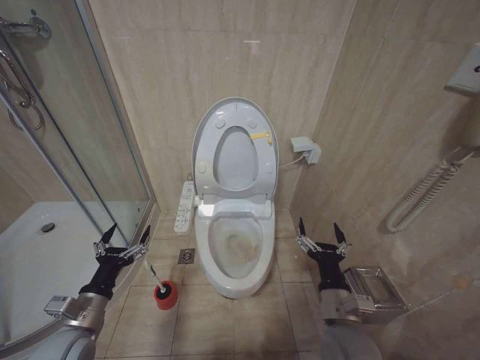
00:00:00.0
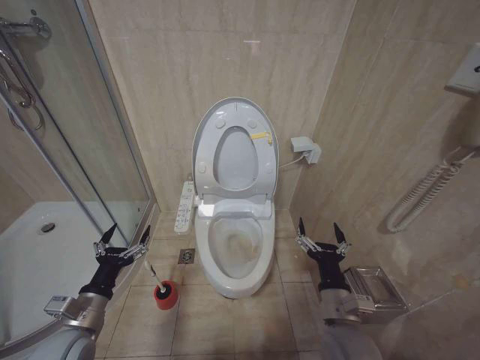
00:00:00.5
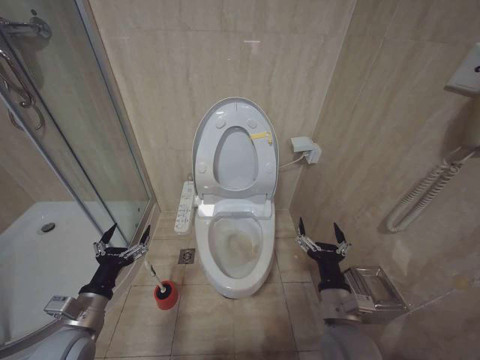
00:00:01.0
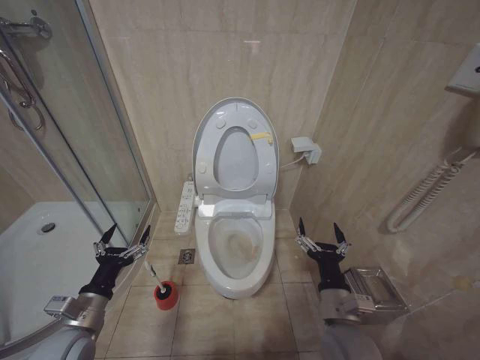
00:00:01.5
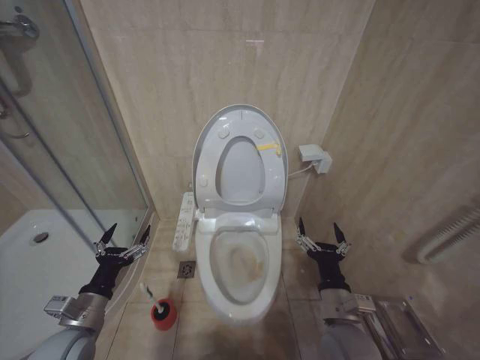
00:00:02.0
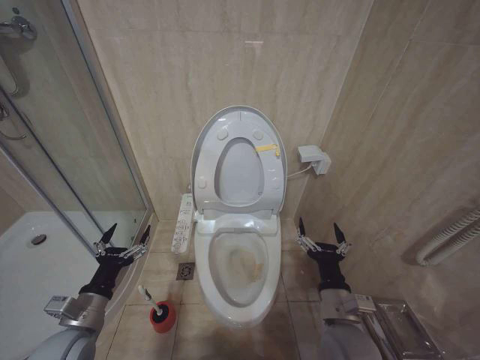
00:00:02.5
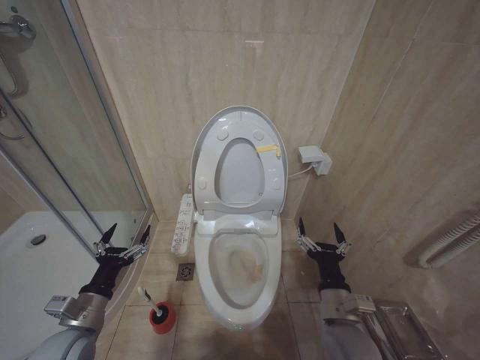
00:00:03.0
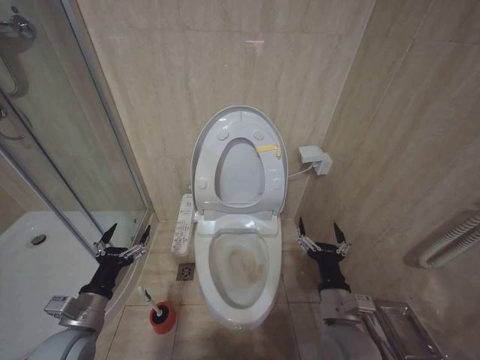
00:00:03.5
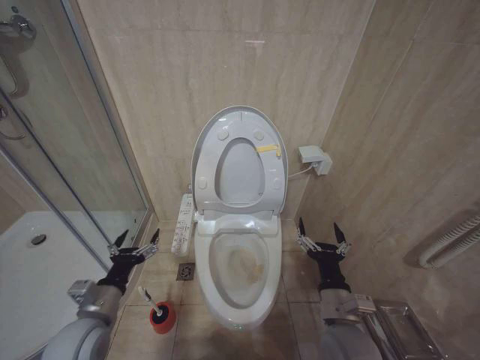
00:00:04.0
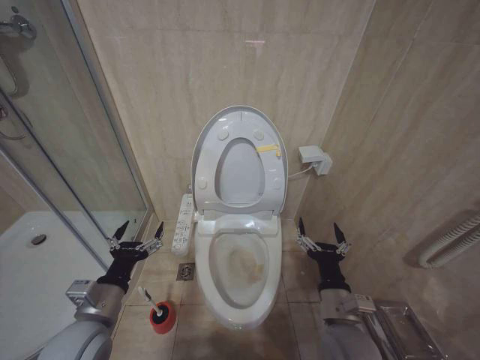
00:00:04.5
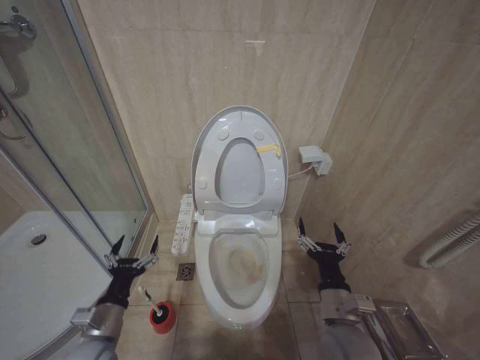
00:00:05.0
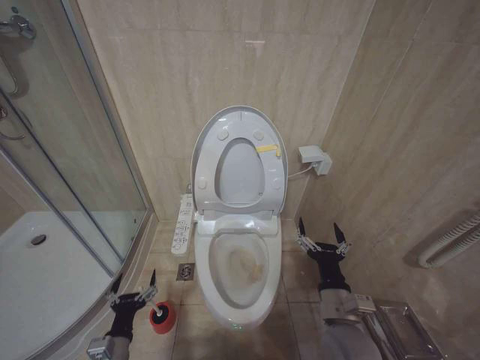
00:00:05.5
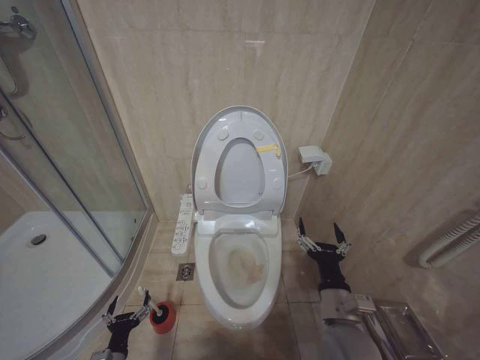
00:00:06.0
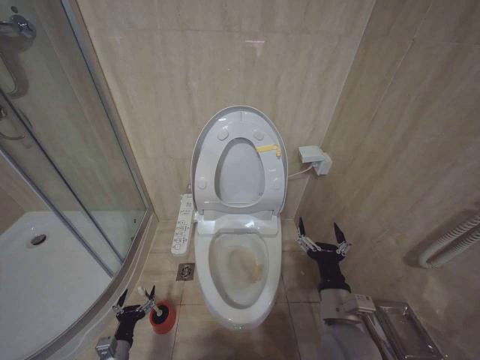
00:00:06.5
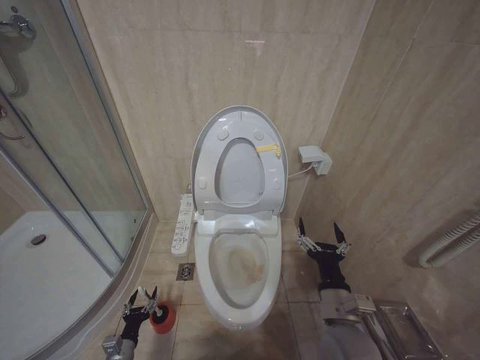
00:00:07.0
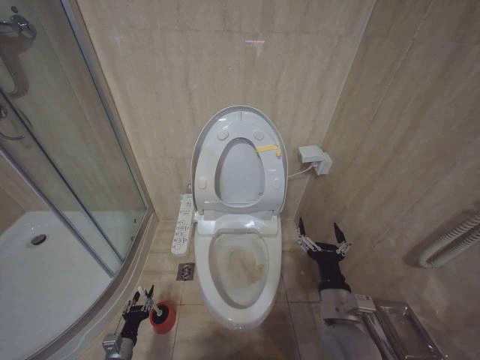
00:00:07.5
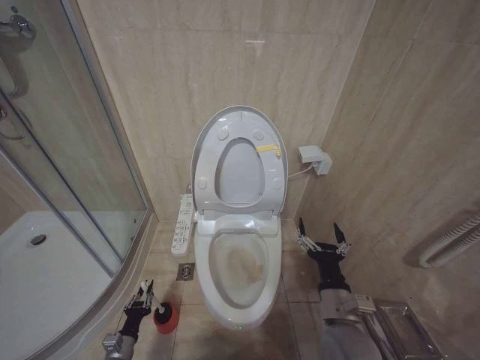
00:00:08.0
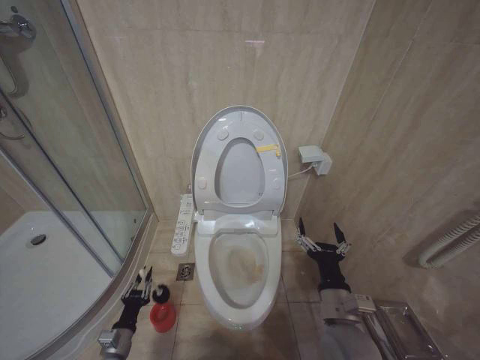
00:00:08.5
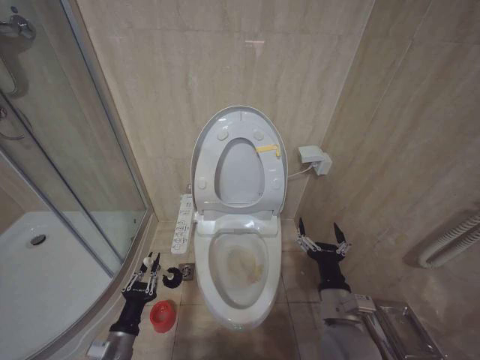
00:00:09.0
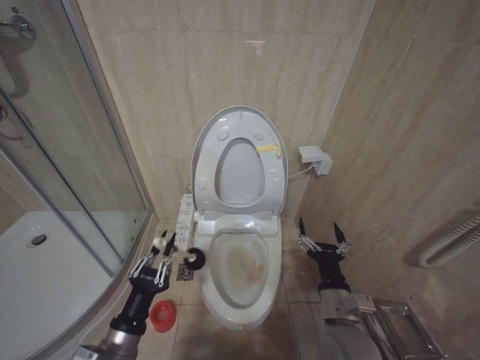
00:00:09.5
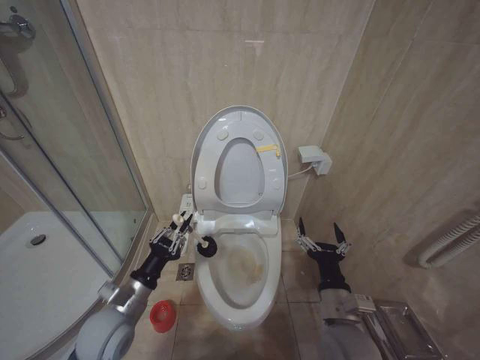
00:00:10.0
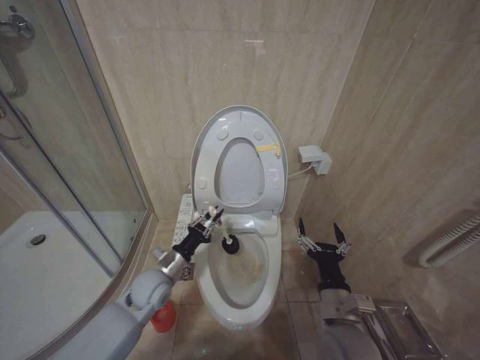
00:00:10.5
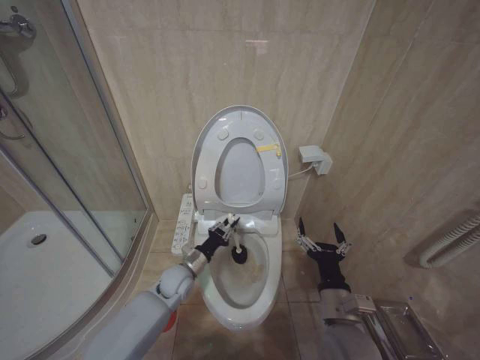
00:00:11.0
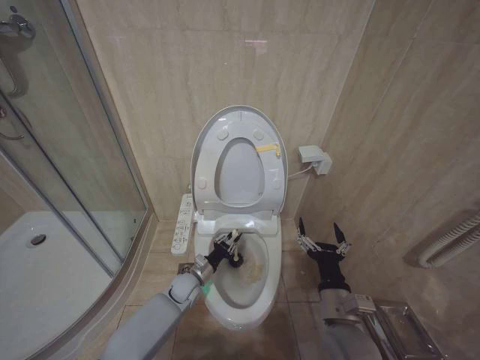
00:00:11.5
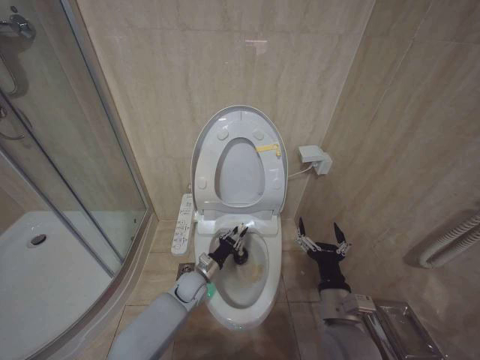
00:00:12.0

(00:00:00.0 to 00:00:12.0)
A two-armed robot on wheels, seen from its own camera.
Task of the whole recording: Open the toilet lid, clean the toilet bowl with a toilet brush, close the toilet lid, and flush.
00:00:00.0 - 00:00:02.0: The two grippers keep their place.
00:00:02.0 - 00:00:04.0: There are only small adjustments of the grippers.
00:00:04.0 - 00:00:06.0: The left gripper shifts approximately 20 cm downward.
00:00:06.0 - 00:00:08.0: The left gripper is displaced downward and forward by approximately 10 cm, and closes up.
00:00:08.0 - 00:00:10.0: The left gripper shifts approximately 25 cm upward.
00:00:10.0 - 00:00:12.0: The left gripper moves forward, downward and to the right, roughly 25 cm.

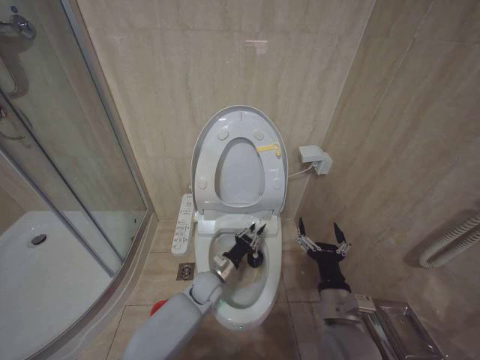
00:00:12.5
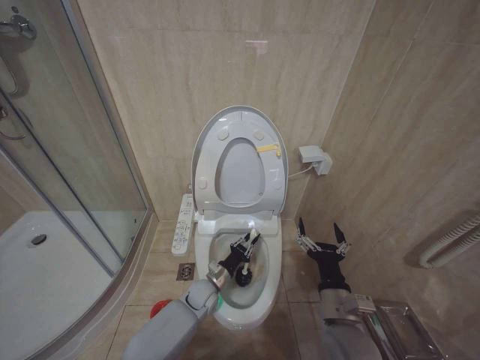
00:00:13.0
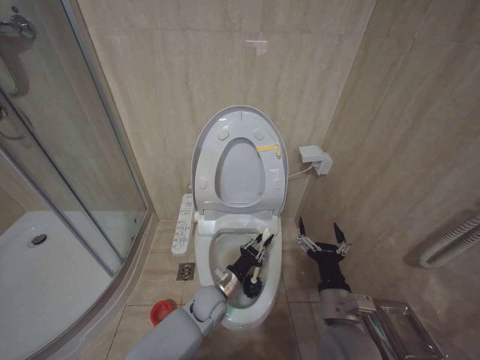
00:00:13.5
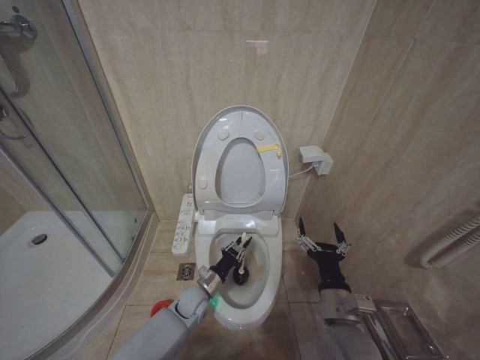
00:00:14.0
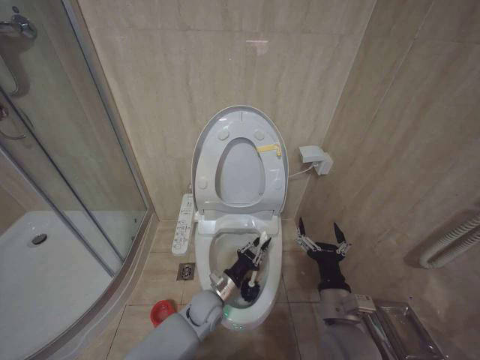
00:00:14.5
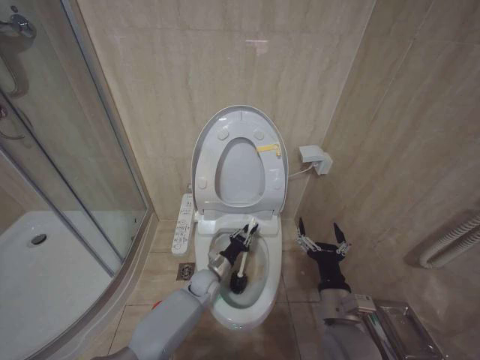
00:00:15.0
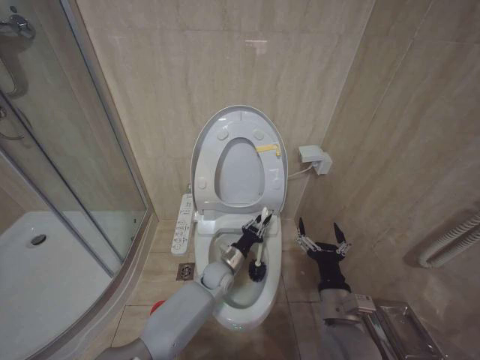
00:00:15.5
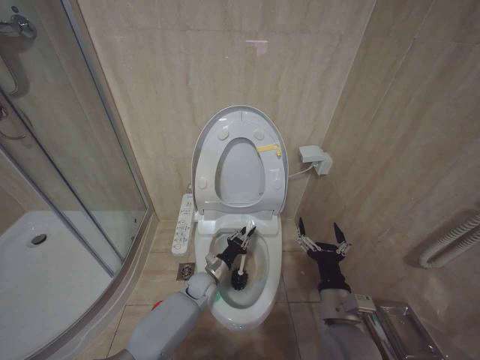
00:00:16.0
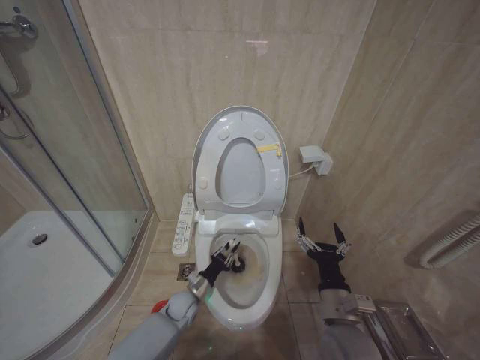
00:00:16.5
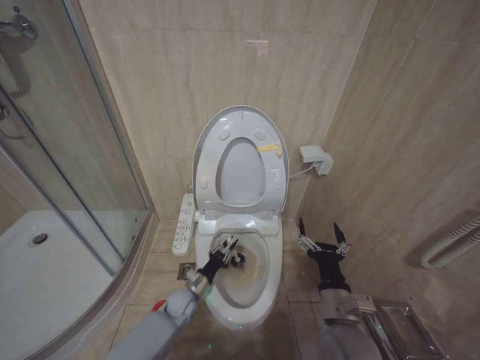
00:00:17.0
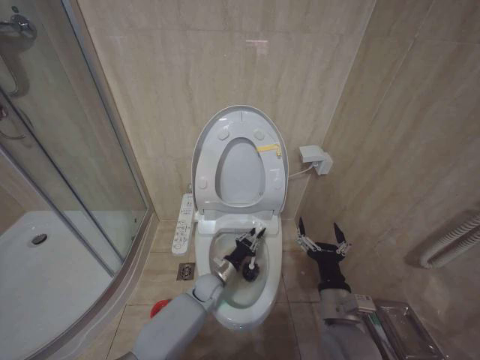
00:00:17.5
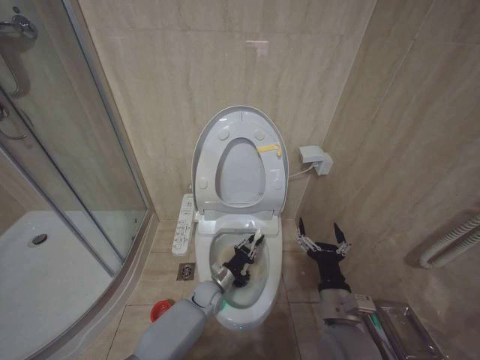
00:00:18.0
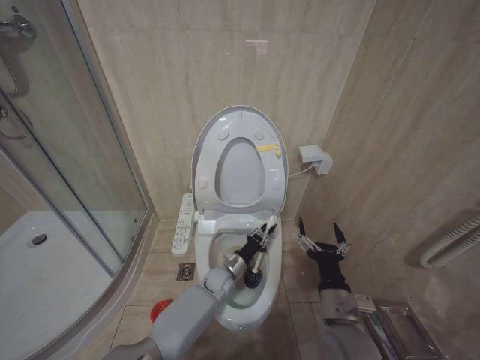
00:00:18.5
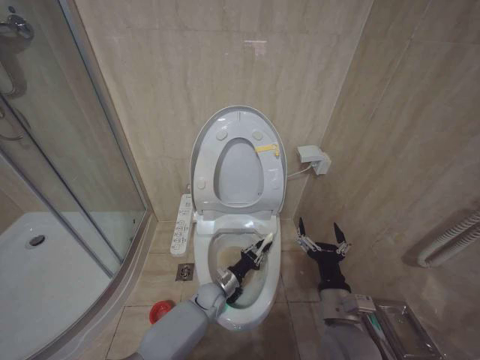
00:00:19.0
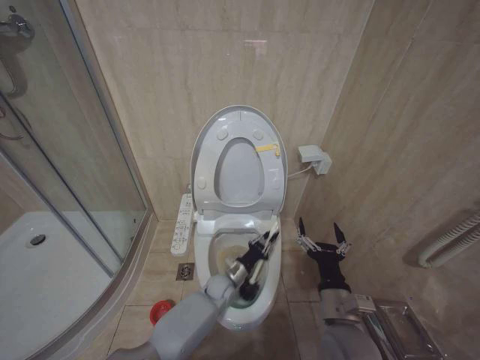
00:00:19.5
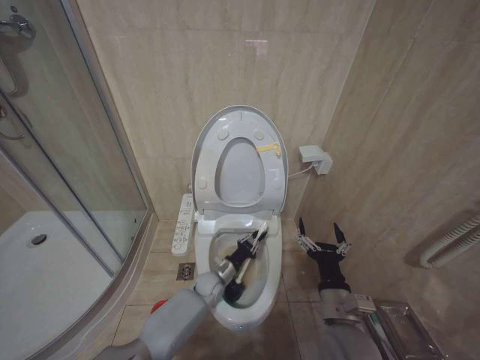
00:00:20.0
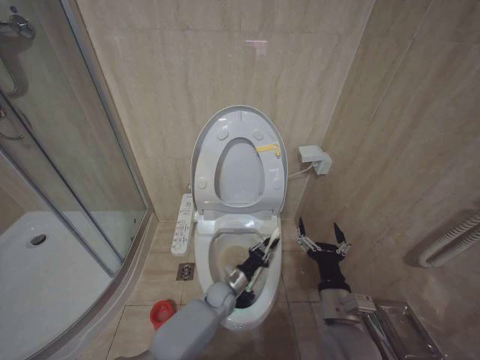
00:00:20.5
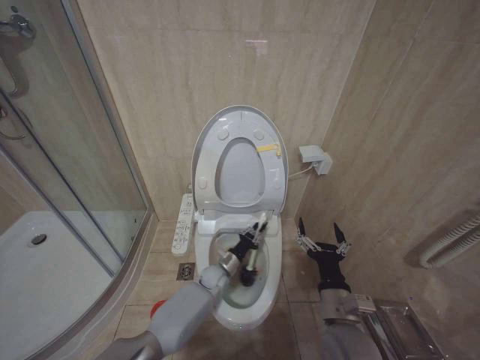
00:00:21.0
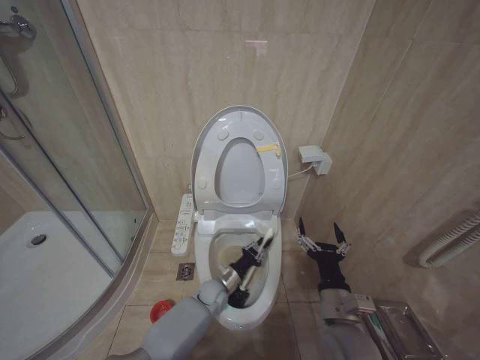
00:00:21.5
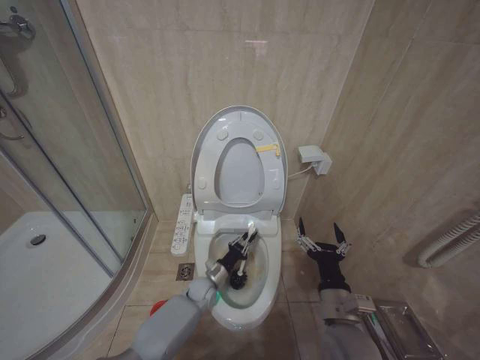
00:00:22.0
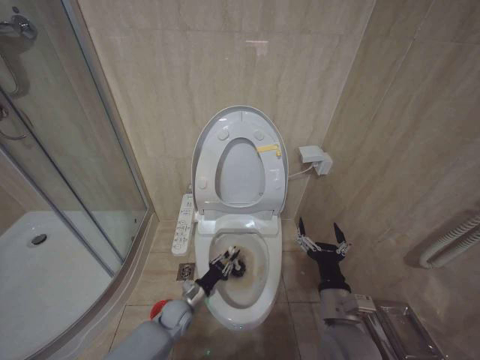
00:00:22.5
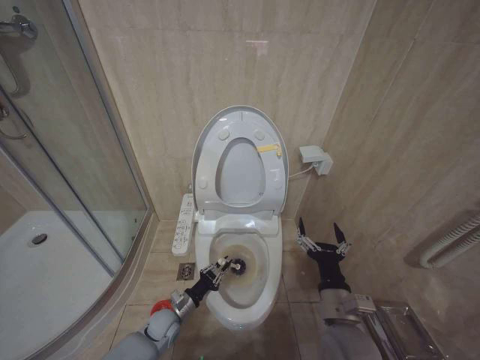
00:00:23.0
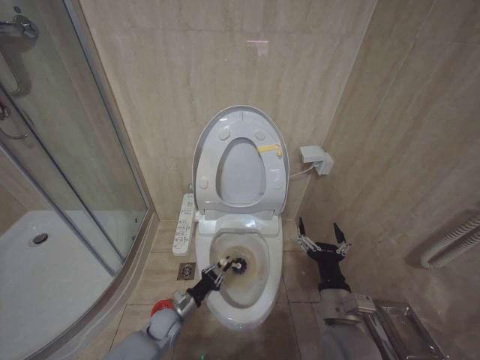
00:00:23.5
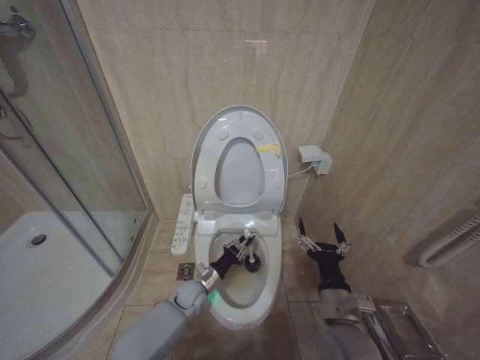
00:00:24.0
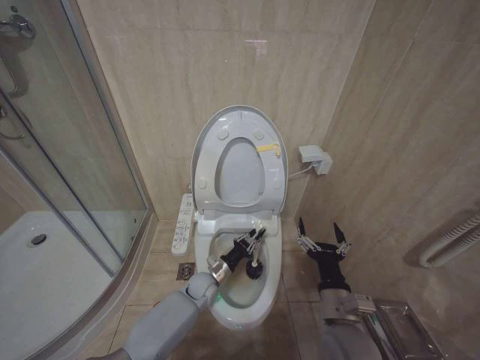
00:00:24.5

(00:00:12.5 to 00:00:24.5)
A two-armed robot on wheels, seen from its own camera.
Task of the whole recording: Open the toilet lid, clean the toilet bowl with a toilet brush, close the toilet lid, and flush.
00:00:12.5 - 00:00:14.5: The left gripper goes roughly 5 cm backward.
00:00:14.5 - 00:00:16.5: The left gripper heads to the left and downward, covering some 10 cm.
00:00:16.5 - 00:00:18.5: The left gripper travels to the right by approximately 10 cm.
00:00:18.5 - 00:00:20.5: The grippers stay close to where they were, moving slightly.
00:00:20.5 - 00:00:22.5: The left gripper heads to the left, covering about 15 cm.
00:00:22.5 - 00:00:24.5: The left gripper goes roughly 5 cm to the right.

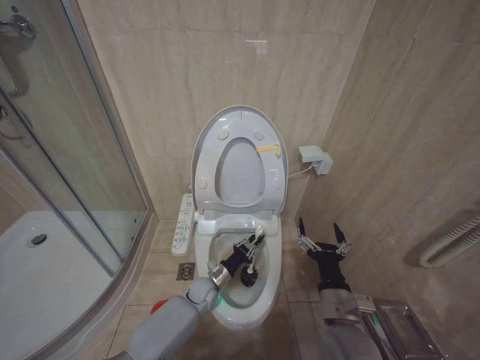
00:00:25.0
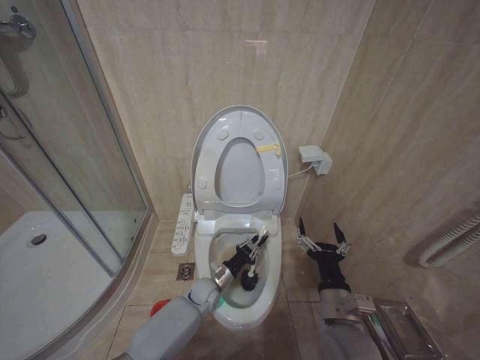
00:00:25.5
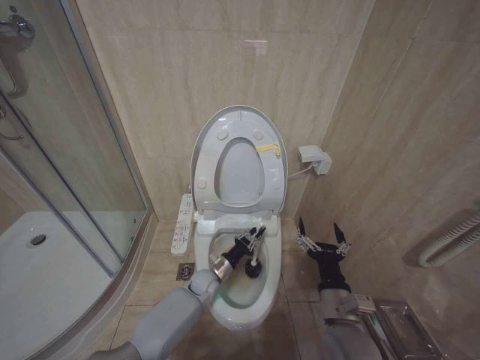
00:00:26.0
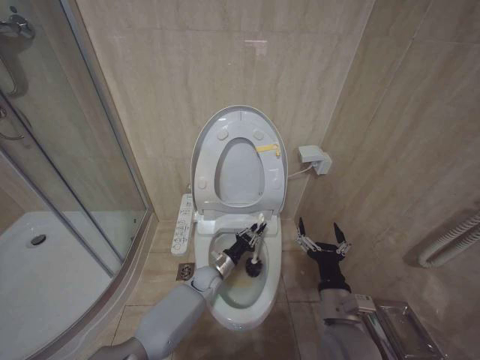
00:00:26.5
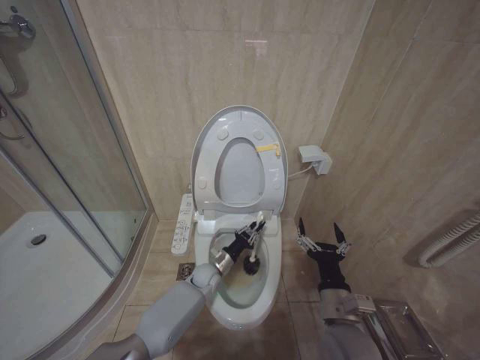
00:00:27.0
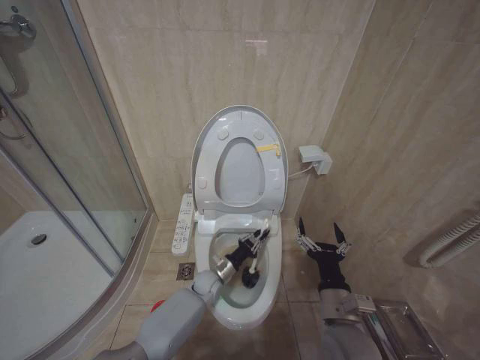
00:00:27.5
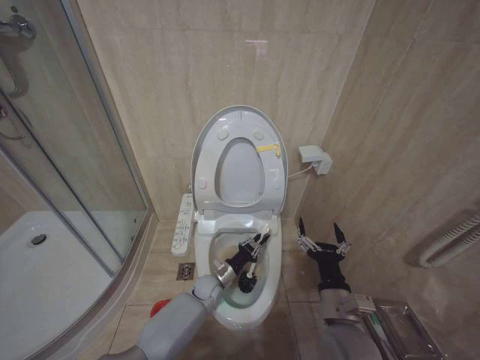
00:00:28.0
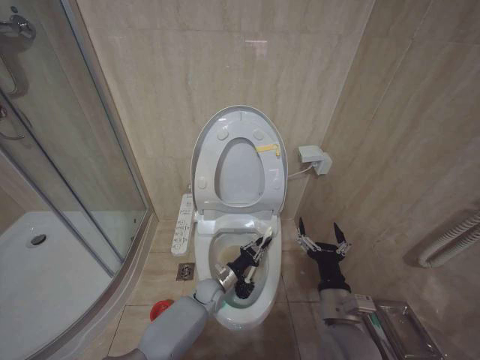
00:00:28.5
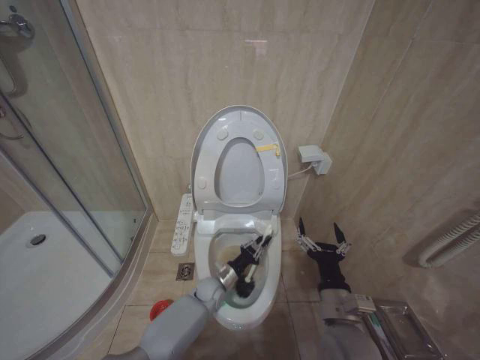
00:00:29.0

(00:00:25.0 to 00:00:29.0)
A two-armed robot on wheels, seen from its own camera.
Task of the whole recording: Open the toilet lid, clean the toilet bowl with a toilet brush, close the toilet lid, and flush.
00:00:25.0 - 00:00:29.0: The grippers make only small movements.
